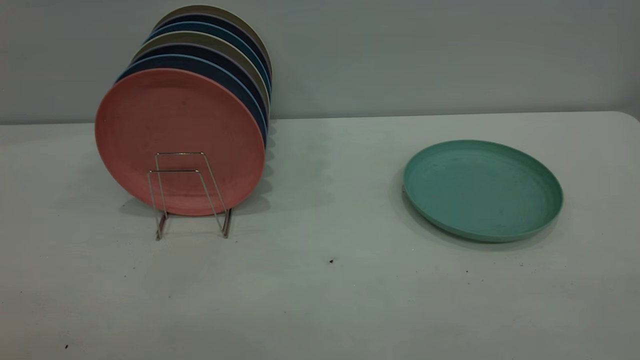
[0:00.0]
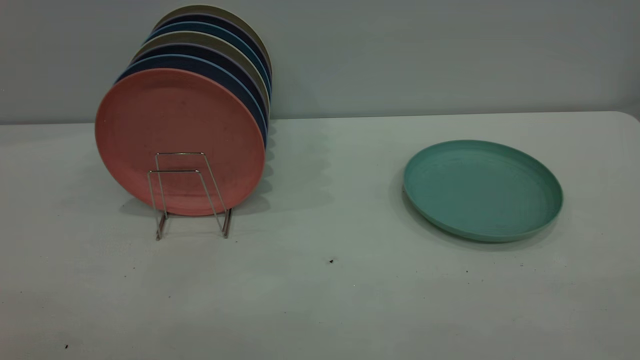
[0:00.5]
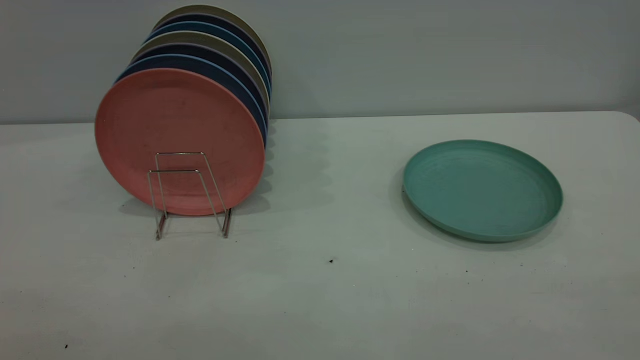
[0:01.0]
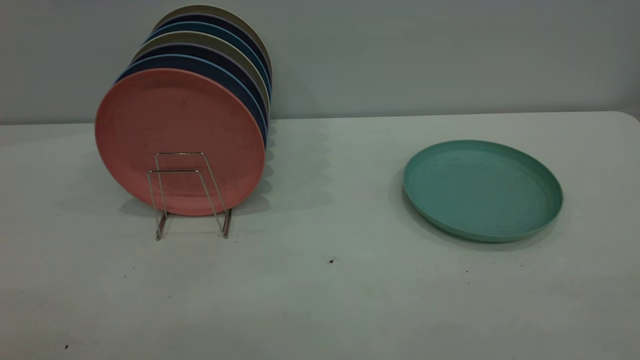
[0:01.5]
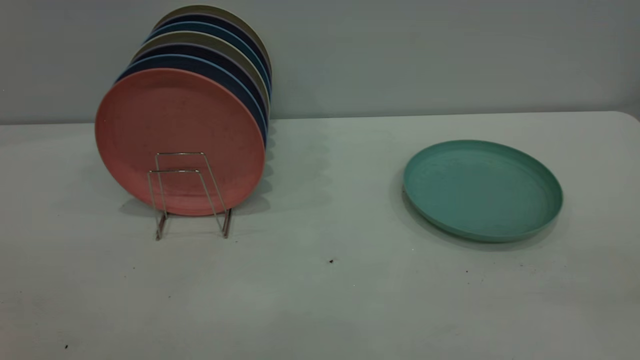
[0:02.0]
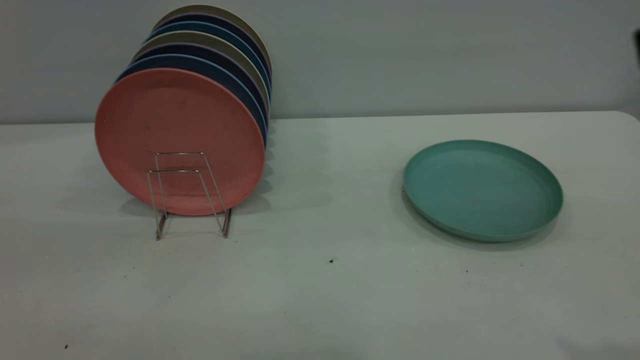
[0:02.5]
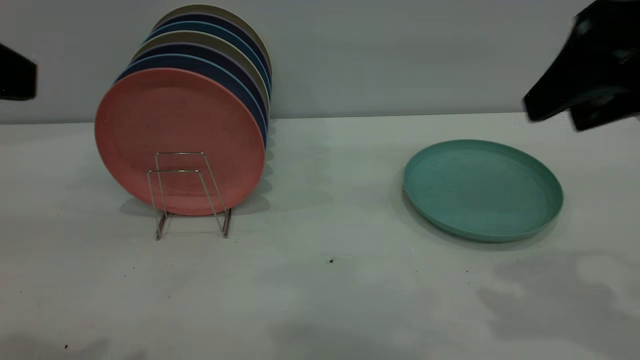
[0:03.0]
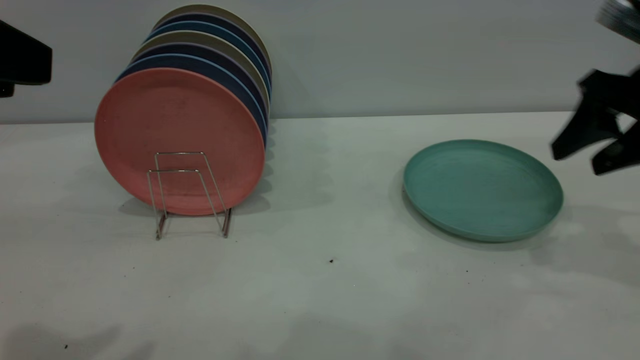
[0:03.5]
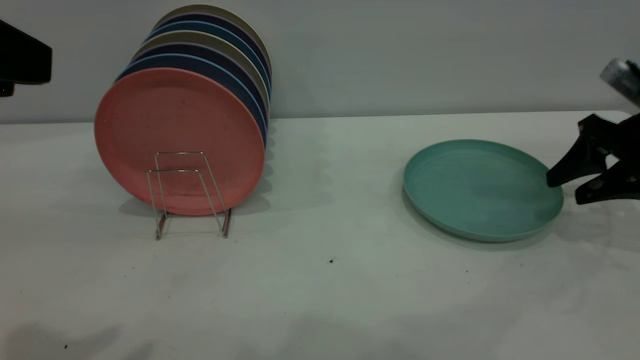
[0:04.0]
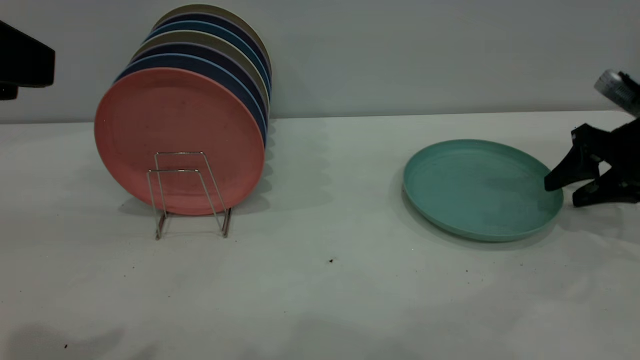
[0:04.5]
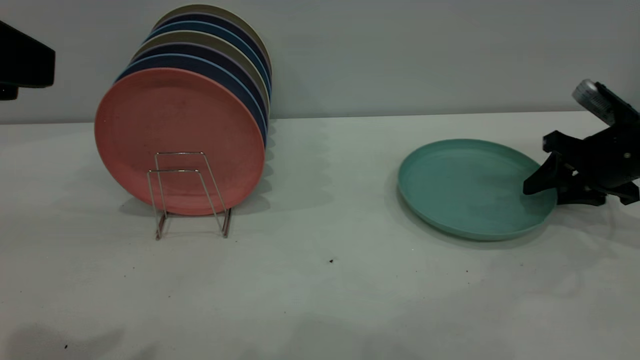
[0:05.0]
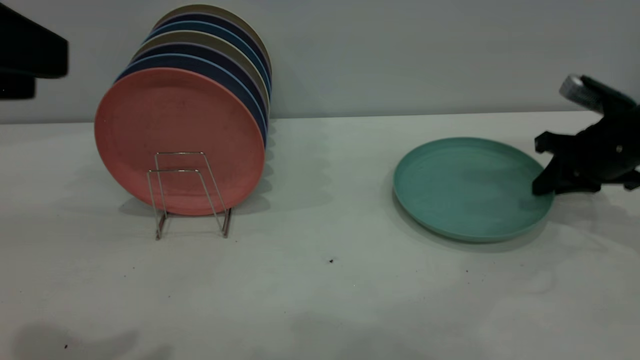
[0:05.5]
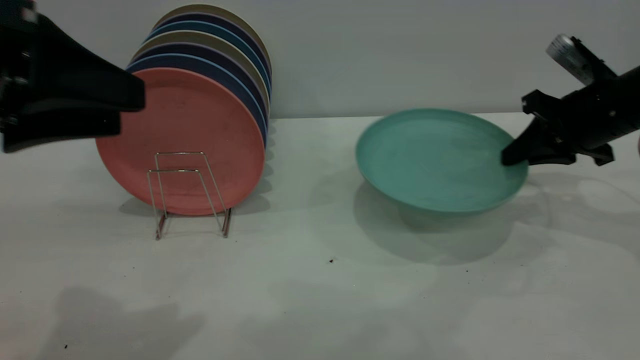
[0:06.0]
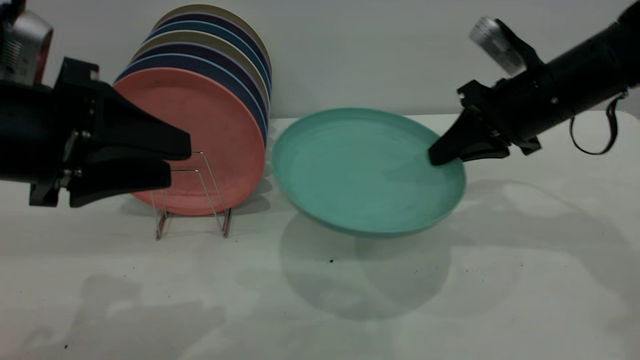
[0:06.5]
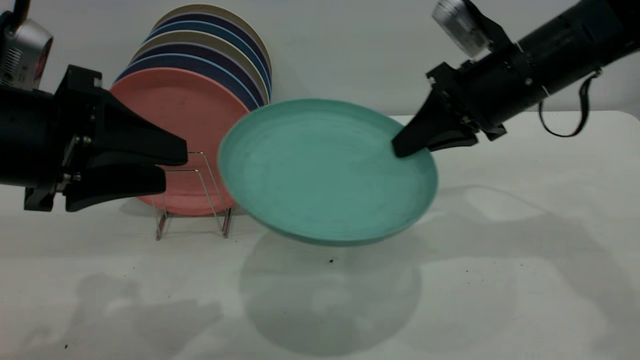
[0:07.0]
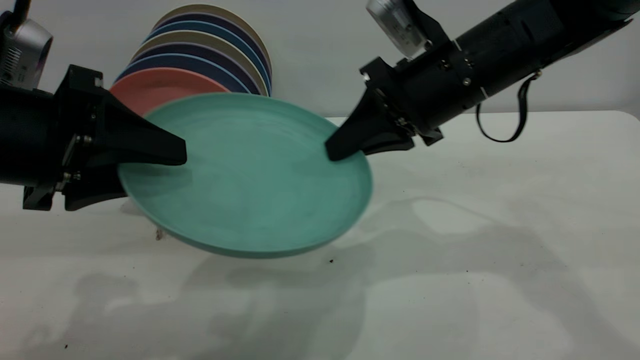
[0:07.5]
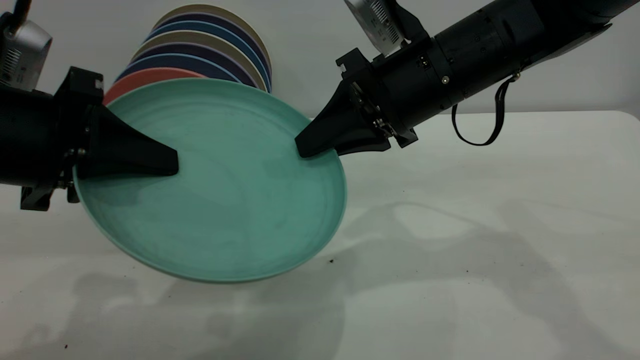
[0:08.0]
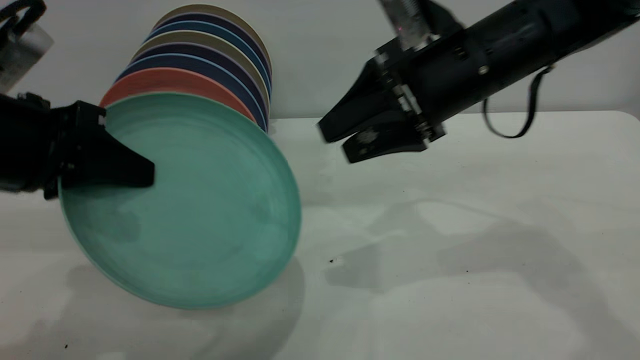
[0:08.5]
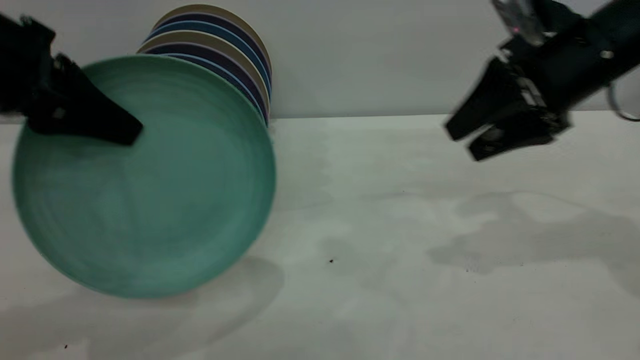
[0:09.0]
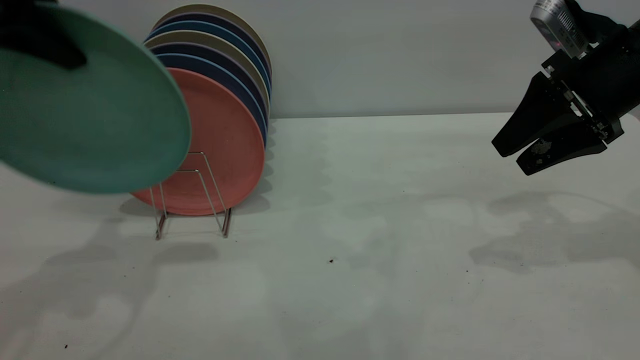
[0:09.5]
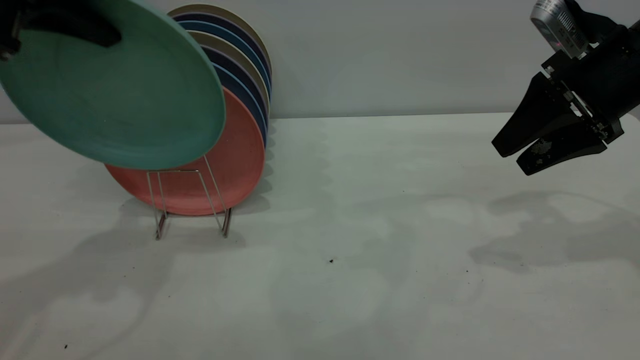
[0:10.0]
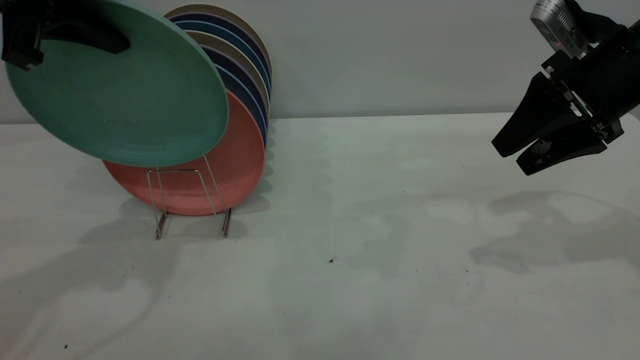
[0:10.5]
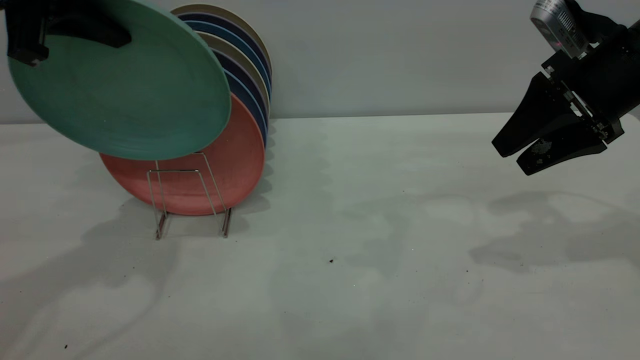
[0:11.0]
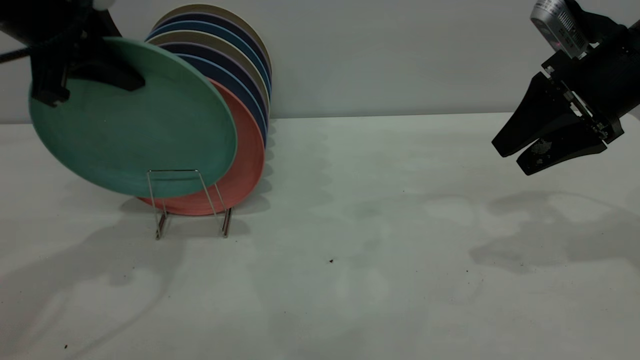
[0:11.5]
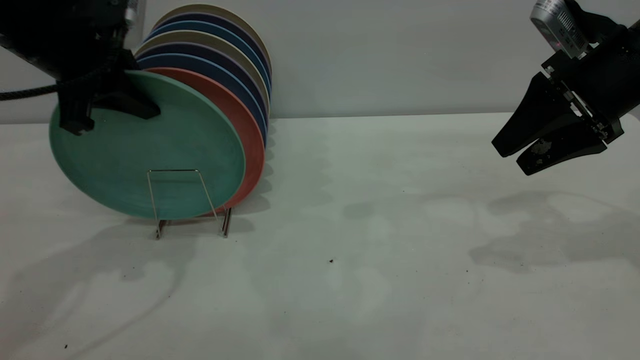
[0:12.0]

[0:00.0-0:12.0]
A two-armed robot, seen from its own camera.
Task of the whole recording: the right gripper grasp the green plate, the right gripper pass the green plate to the left gripper, and the left gripper place the green plate on the plate rack.
Step, 0:00.0 to 0:05.5: Pick up the plate with the right gripper.
Step, 0:06.0 to 0:08.0: Pass the plate from the right gripper to the left gripper.
0:02.0 to 0:04.0: The left gripper heads forward, covering about 15 cm. The right gripper moves forward and downward, some 40 cm.
0:04.0 to 0:06.0: The right gripper travels to the left by some 5 cm, and closes its fingers. Meanwhile the left gripper shifts some 5 cm downward.
0:06.0 to 0:08.0: The left gripper is displaced downward by about 5 cm, and closes its fingers, while the right gripper is displaced to the left by approximately 20 cm.
0:08.0 to 0:10.0: The left gripper shifts roughly 15 cm upward and forward. The right gripper travels to the right by roughly 20 cm, and opens up.
0:10.0 to 0:12.0: The left gripper moves downward, roughly 10 cm.

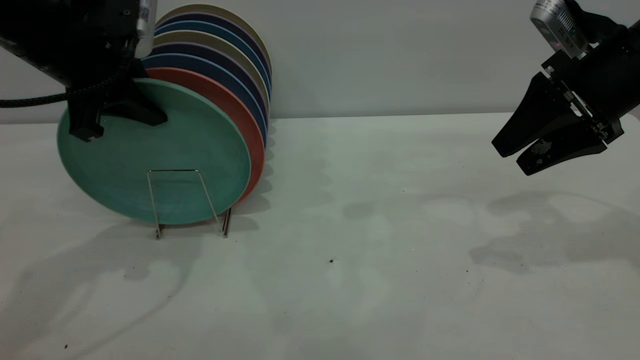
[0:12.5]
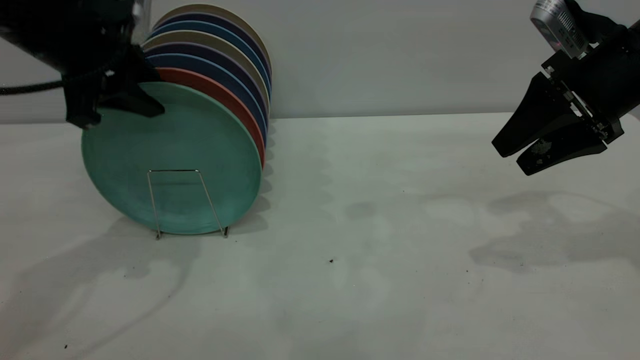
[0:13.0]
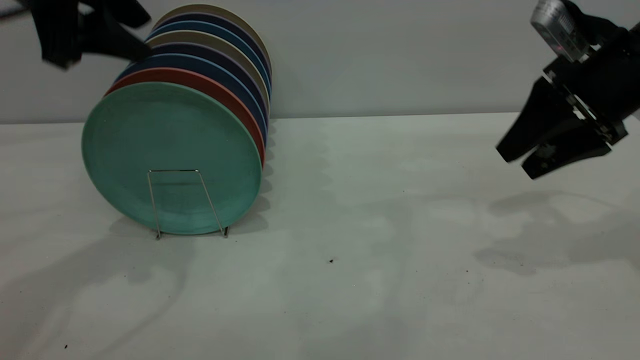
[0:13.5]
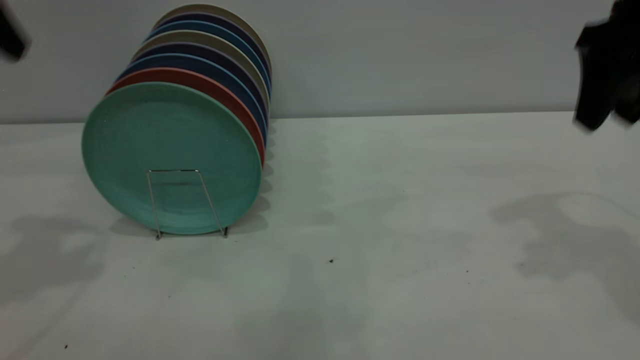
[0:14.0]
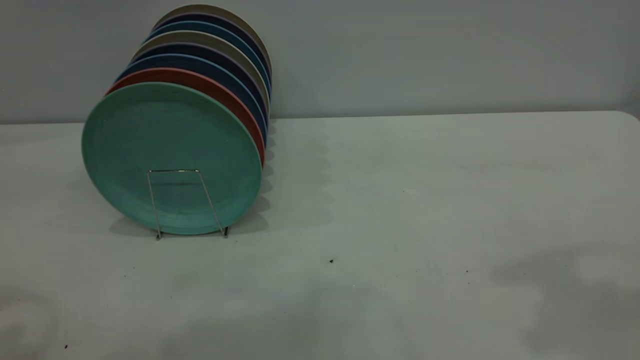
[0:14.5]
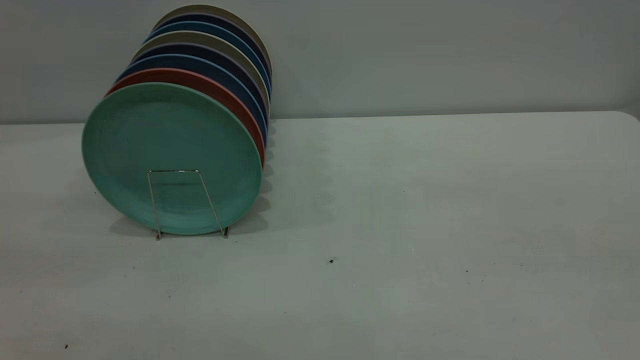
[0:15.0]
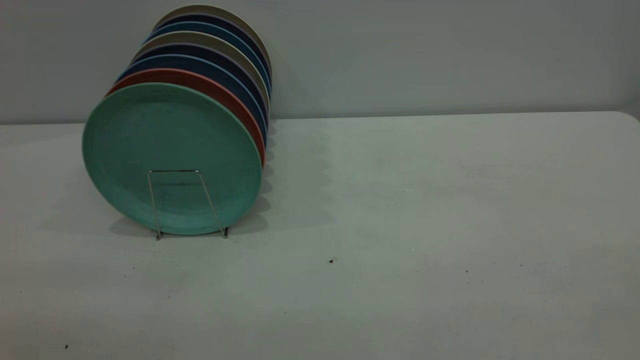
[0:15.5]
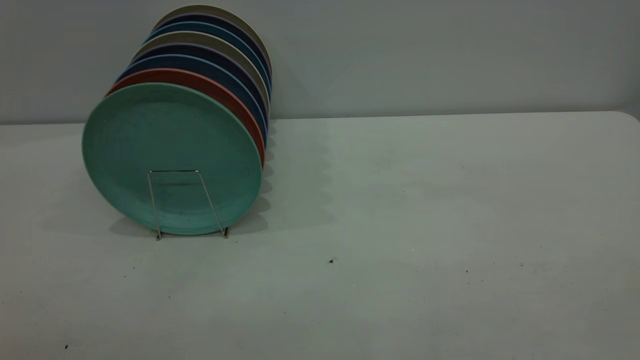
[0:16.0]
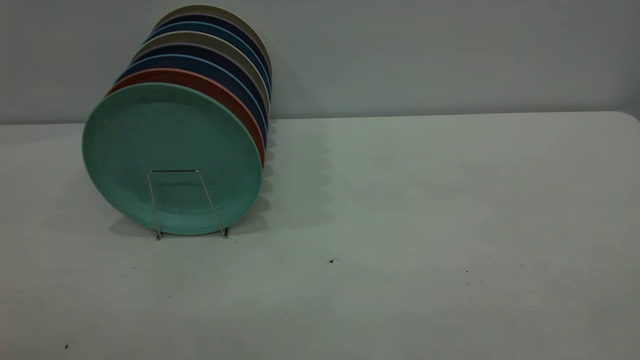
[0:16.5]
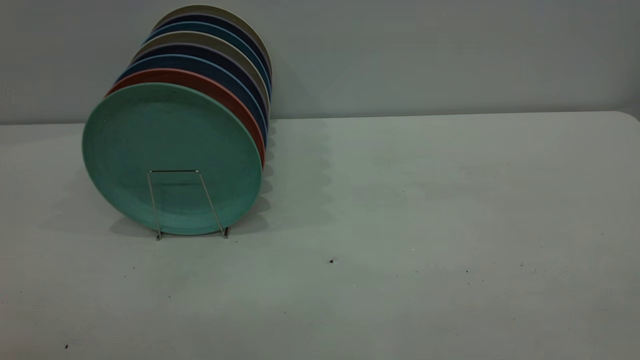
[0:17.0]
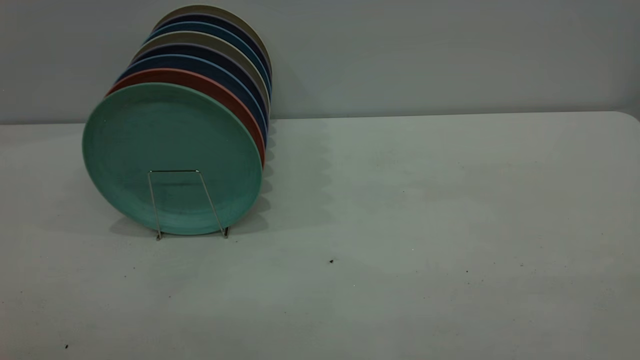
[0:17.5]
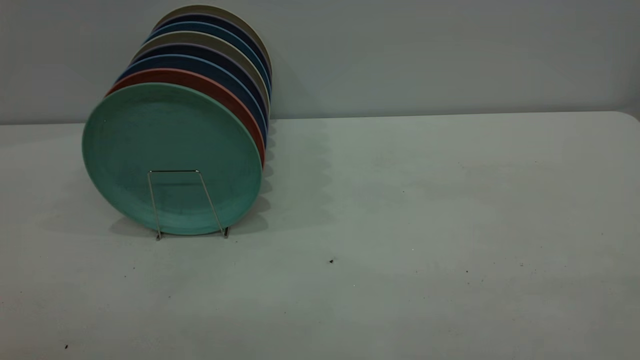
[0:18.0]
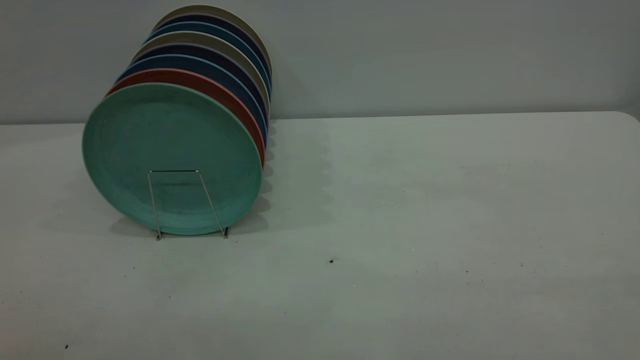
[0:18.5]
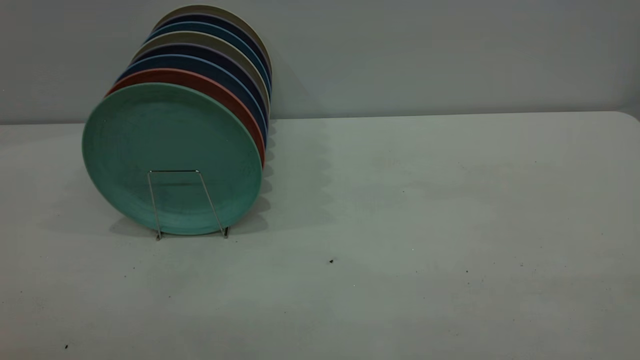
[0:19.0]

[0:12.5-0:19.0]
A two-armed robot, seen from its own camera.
Task of the whole recording: the right gripper grasp the green plate, the right gripper pass the green plate to the left gripper, and the left gripper place the green plate on the plate rack.
0:12.5 to 0:14.5: The left gripper is displaced backward, upward and to the left by approximately 25 cm, and opens up. Meanwhile the right gripper travels upward and backward by some 25 cm.
